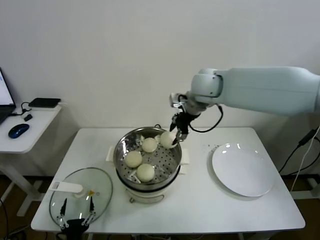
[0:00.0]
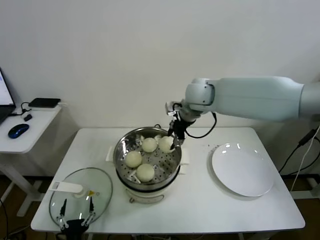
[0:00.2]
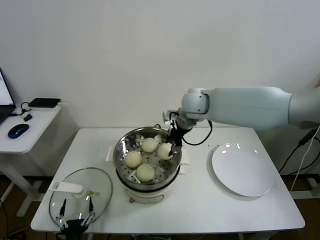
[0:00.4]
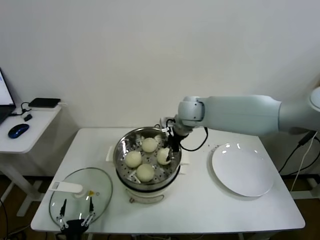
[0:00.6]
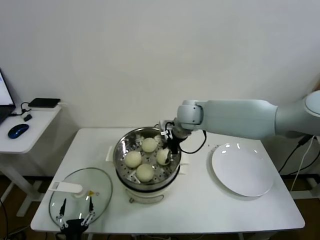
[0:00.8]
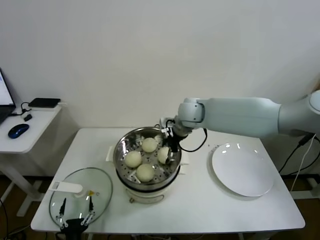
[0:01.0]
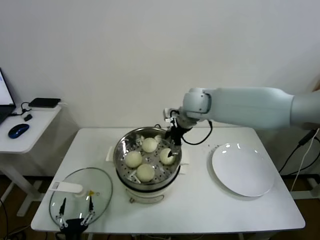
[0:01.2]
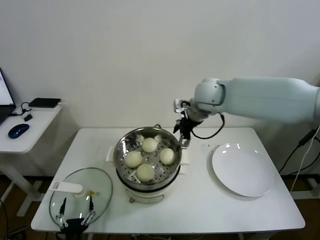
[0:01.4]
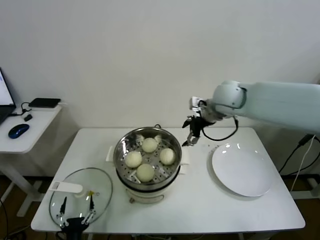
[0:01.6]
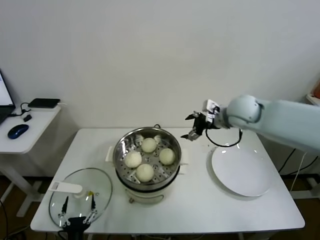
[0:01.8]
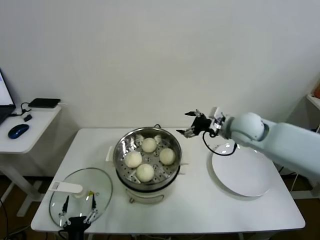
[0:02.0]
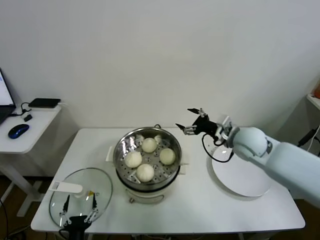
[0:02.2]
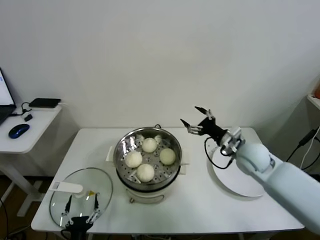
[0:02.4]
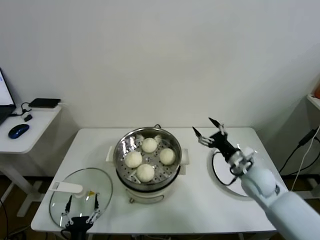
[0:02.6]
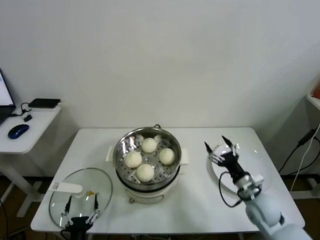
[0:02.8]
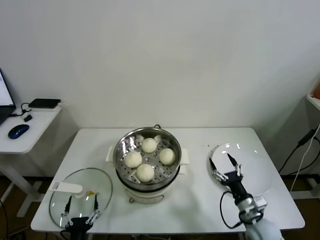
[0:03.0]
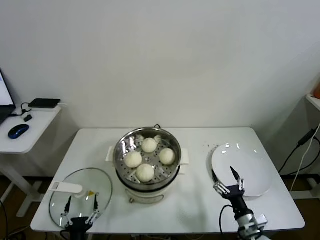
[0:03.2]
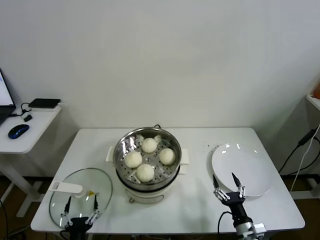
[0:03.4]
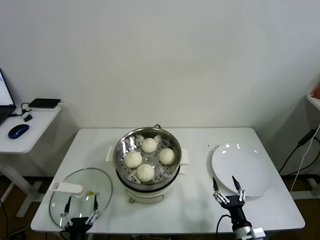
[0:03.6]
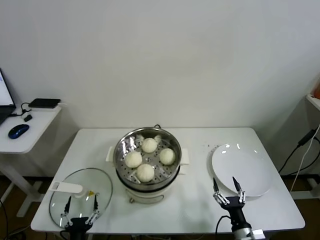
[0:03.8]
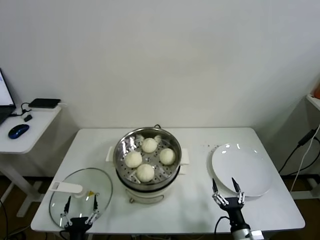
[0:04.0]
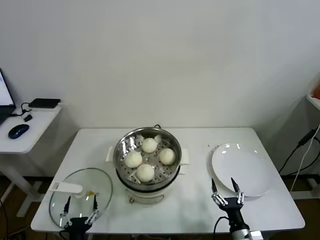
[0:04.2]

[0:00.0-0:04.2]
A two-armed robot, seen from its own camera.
Task of the whole recording: take steamed baozi put them in steamer.
0:00.0 to 0:01.4: The right gripper reaches approximately 10 cm downward, then returns, and opens up.
0:01.4 to 0:02.8: The right gripper heads downward, backward and to the right, covering some 40 cm.
0:02.8 to 0:04.2: The right gripper heads backward and downward, covering approximately 20 cm.

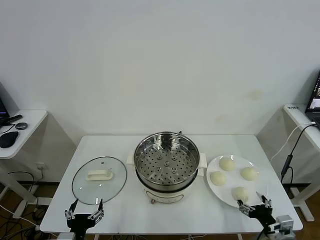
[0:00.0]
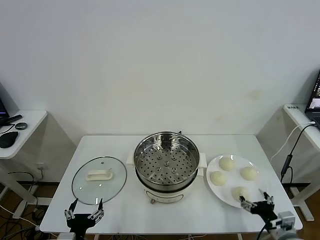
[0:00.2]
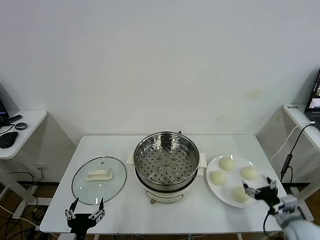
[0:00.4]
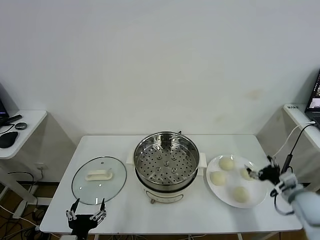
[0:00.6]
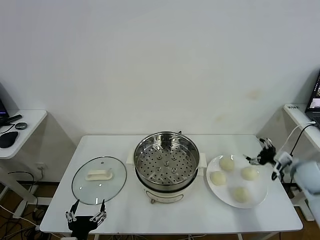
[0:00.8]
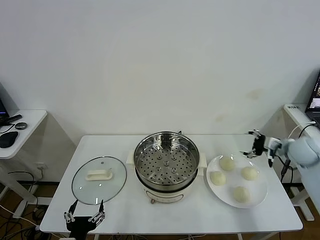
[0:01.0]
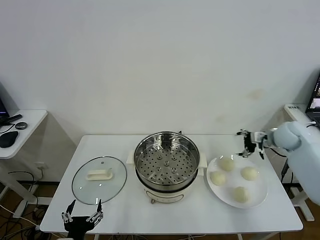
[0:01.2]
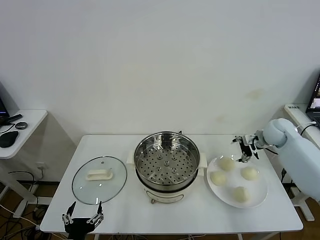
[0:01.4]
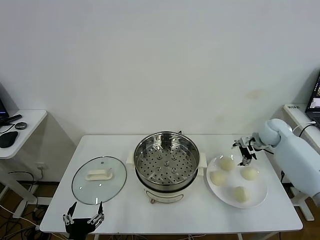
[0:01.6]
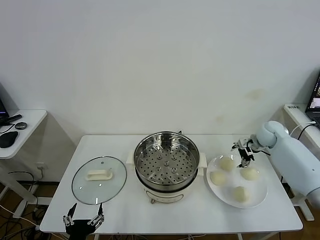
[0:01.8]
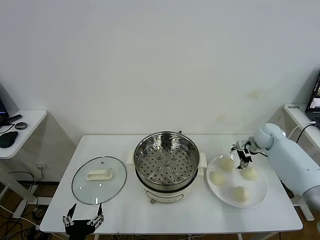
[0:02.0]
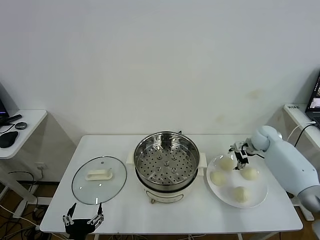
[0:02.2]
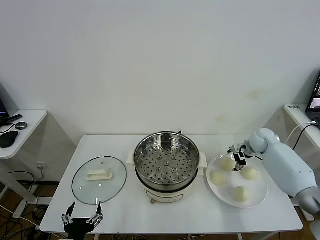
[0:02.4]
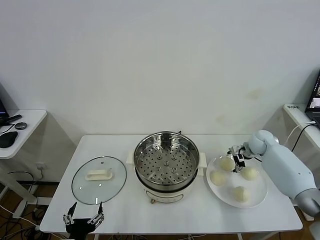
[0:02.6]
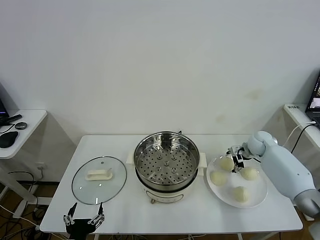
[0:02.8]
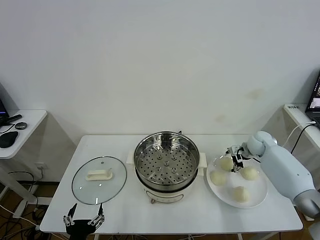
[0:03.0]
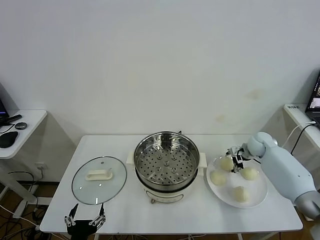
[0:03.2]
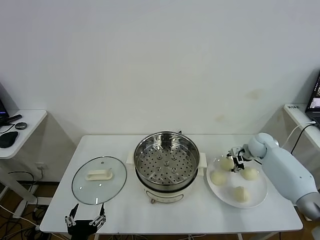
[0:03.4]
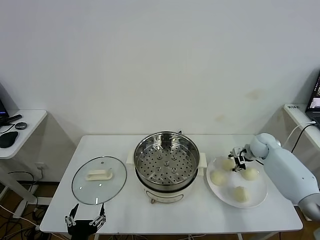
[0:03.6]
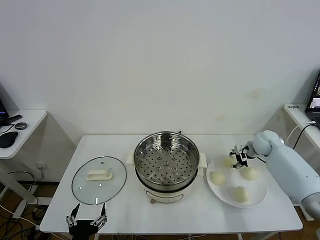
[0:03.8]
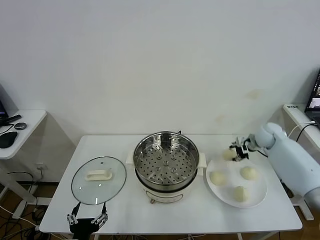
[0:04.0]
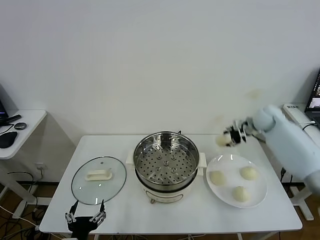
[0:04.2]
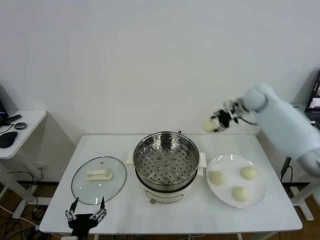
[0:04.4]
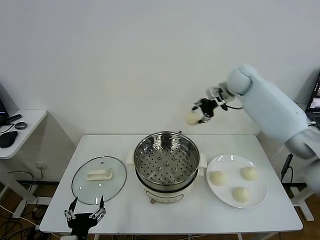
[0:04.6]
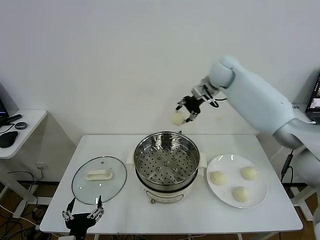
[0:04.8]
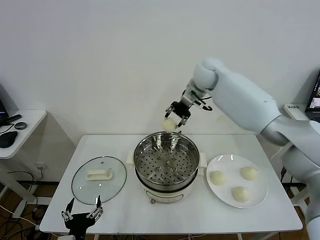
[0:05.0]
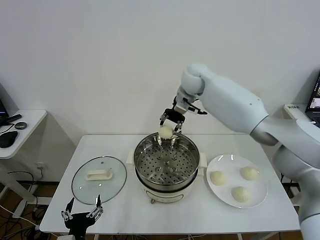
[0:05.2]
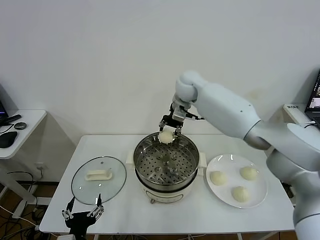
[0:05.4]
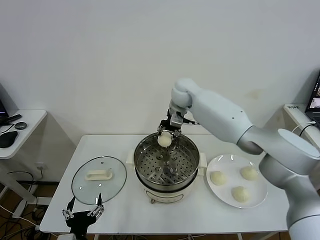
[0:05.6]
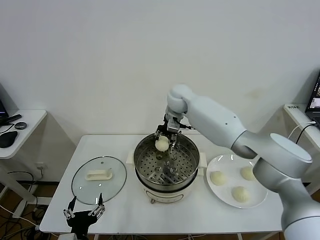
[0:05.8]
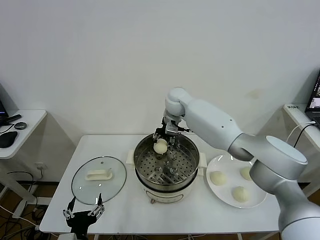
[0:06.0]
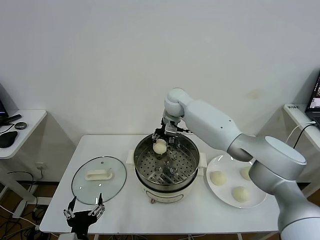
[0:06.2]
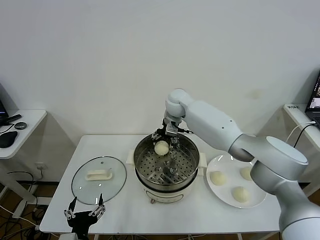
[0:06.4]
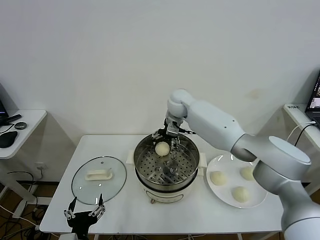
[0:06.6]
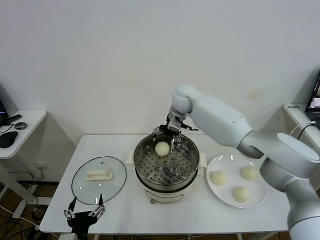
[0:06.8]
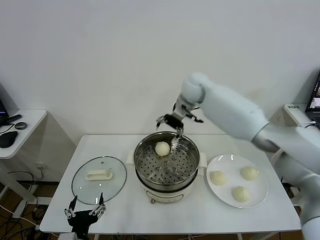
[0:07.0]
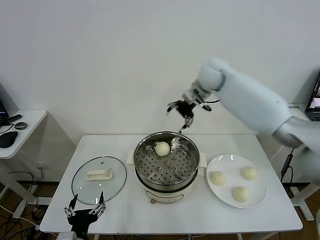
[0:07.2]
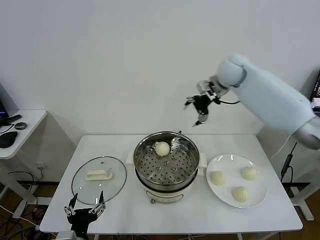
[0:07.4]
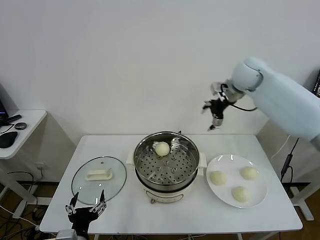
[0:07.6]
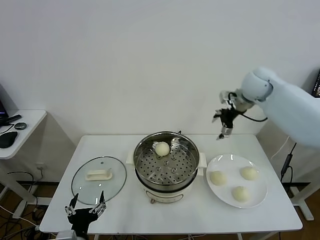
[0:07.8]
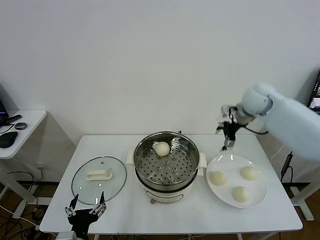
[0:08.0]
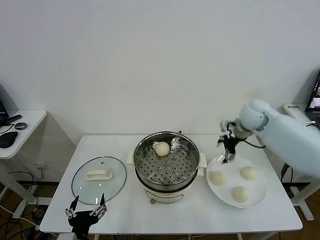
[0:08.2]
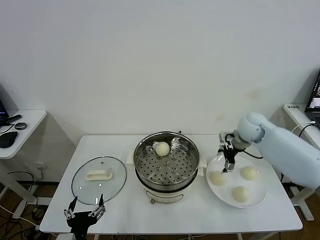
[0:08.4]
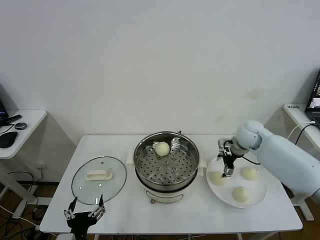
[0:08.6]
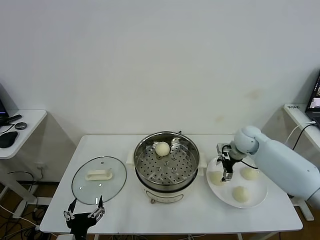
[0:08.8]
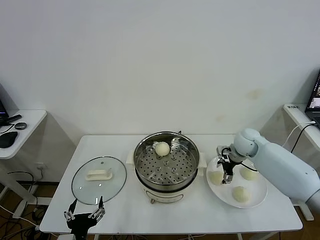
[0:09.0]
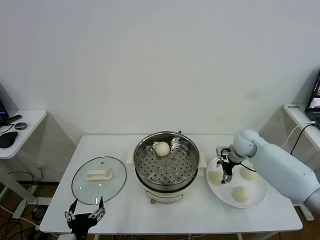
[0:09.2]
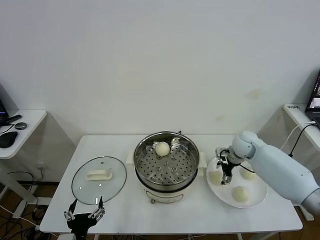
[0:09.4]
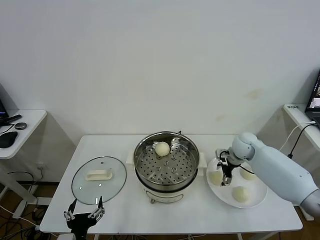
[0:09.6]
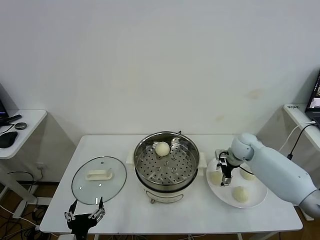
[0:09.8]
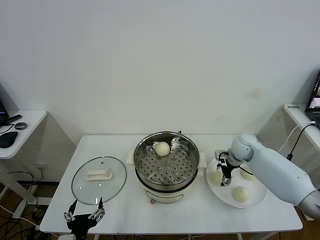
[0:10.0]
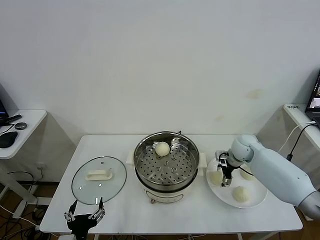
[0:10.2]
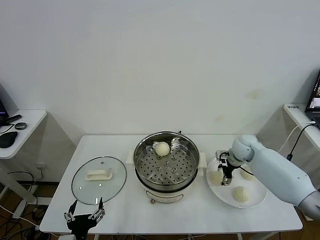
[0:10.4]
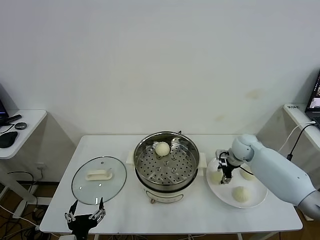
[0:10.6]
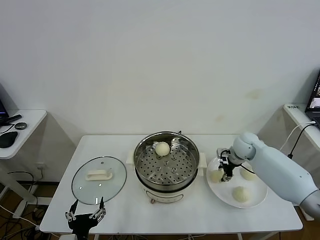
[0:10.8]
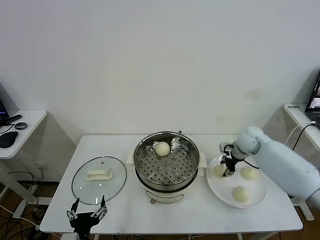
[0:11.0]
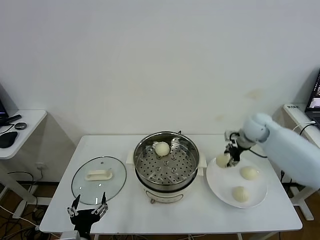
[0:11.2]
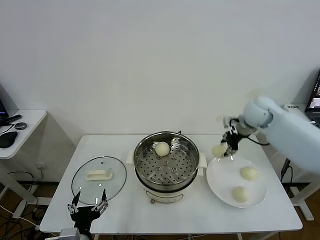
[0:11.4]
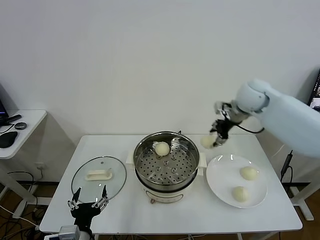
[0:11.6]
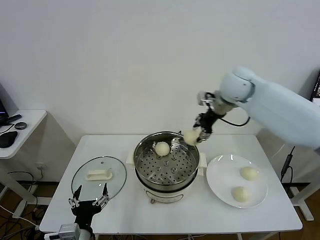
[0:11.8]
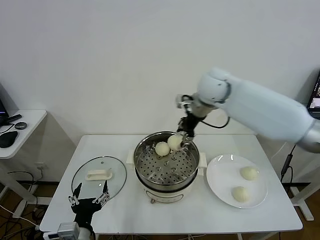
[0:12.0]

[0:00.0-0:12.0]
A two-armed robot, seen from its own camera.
Task of the whole recording: take steamed baozi put them in steamer.
Step, 0:00.0 to 0:03.4: Grasp the baozi in the plate with right gripper.
Step, 0:03.6 to 0:06.8: Place the baozi on the steamer with right gripper.
Step, 0:07.0 to 0:10.6: Grasp the baozi in the plate with right gripper.
0:01.6 to 0:03.0: The right gripper heads downward, covering roughly 5 cm.
0:03.0 to 0:04.4: The right gripper moves upward and to the left, approximately 25 cm, and closes up.
0:04.4 to 0:06.0: The right gripper is displaced to the left by about 25 cm.
0:06.0 to 0:07.6: The right gripper is displaced to the right and upward by some 25 cm, and opens up.
0:07.6 to 0:09.0: The right gripper goes some 20 cm downward.
0:09.0 to 0:10.4: The grippers move only a little.
0:10.4 to 0:12.0: The right gripper moves upward and to the left, about 30 cm.

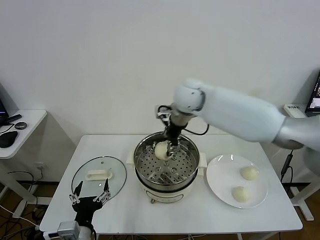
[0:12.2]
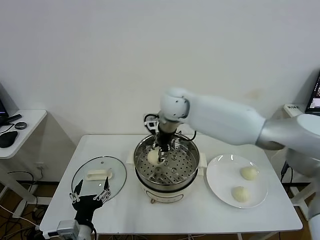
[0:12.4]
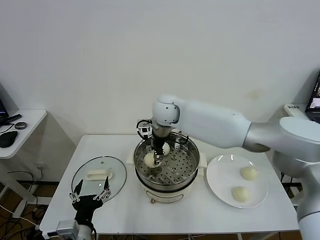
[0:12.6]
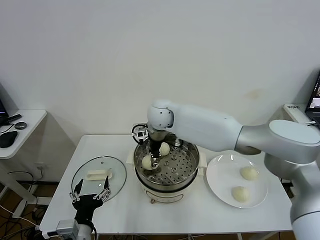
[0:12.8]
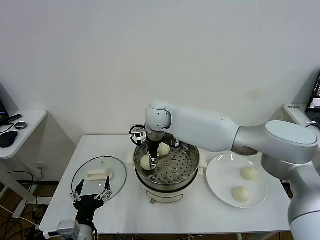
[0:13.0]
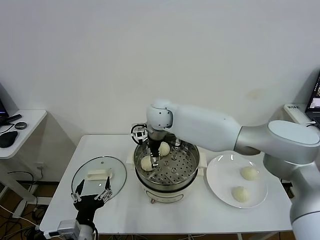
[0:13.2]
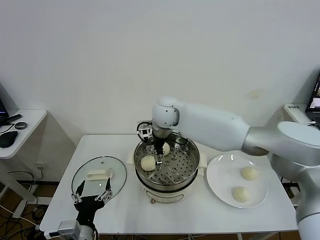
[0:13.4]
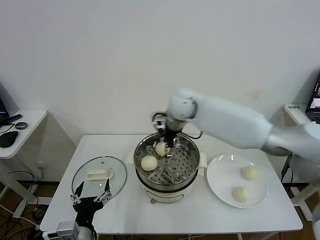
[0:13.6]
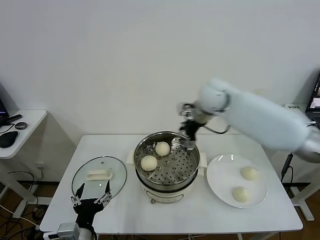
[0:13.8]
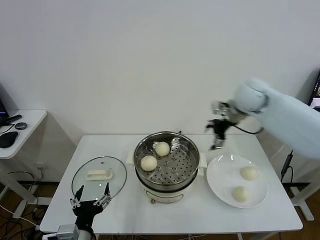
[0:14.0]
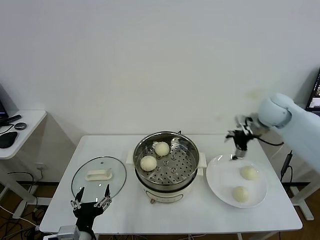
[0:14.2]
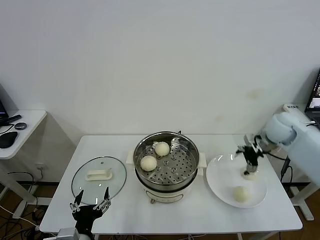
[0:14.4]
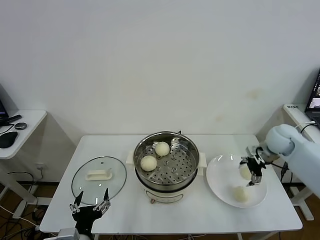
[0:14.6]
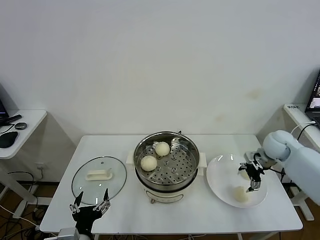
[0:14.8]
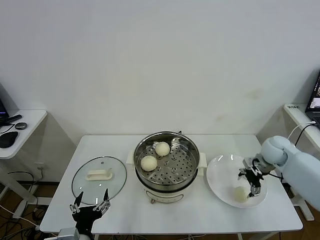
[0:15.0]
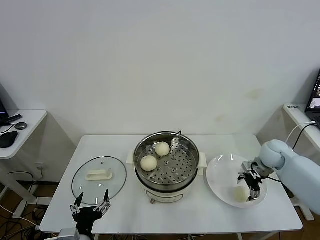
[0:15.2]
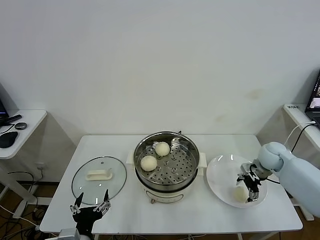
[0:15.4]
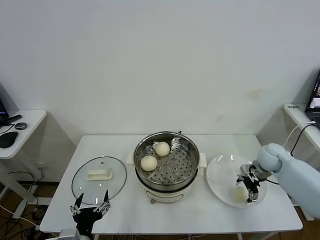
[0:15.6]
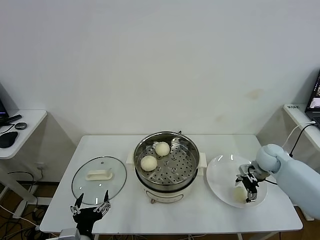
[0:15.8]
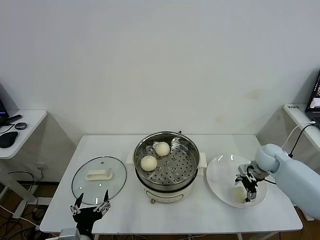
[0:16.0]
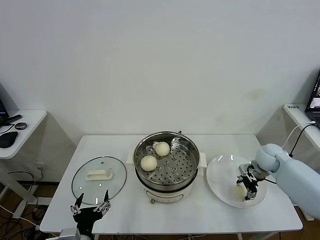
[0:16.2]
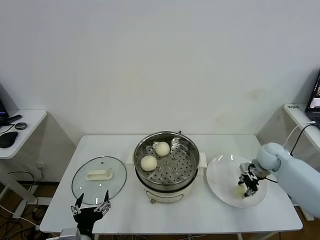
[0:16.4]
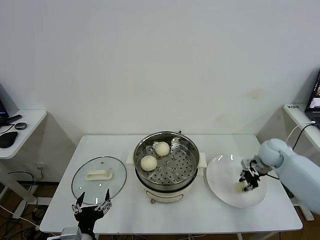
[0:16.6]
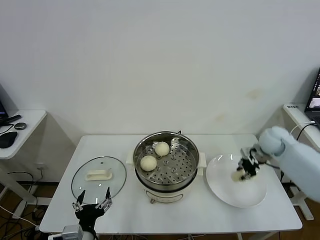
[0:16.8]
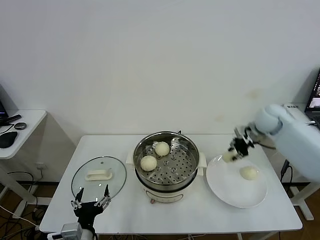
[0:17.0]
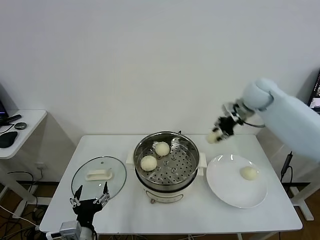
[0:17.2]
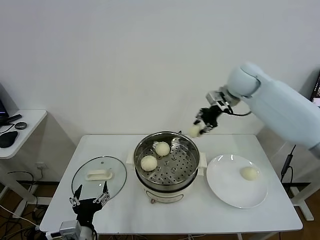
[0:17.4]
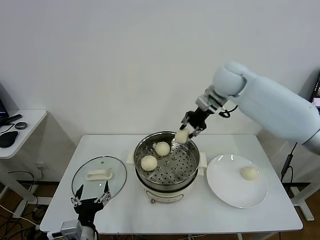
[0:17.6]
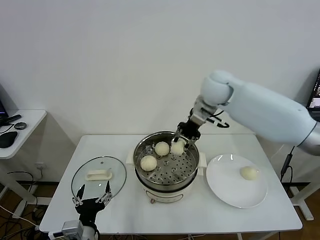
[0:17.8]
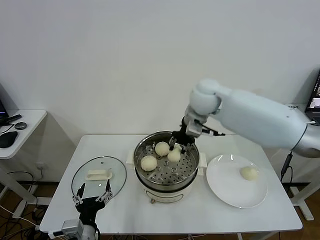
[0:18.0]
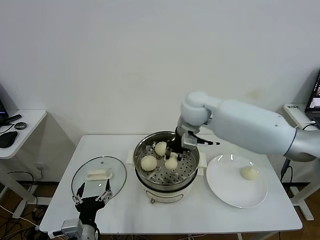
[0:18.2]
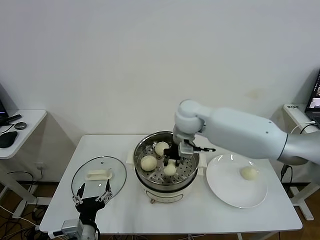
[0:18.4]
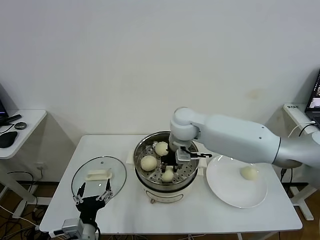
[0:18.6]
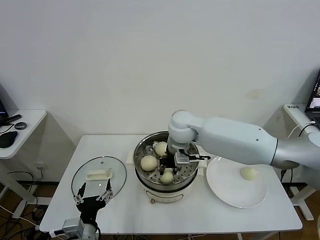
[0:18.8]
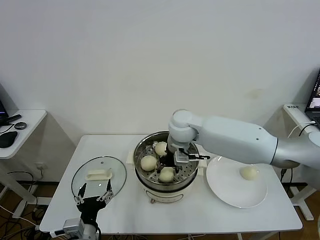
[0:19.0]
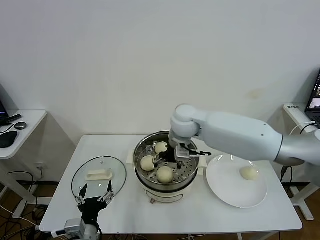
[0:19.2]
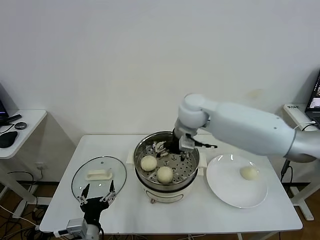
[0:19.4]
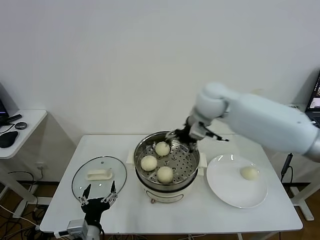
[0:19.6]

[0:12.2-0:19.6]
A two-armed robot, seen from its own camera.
Task of the whole recording: take steamed baozi put them in steamer.
Step, 0:13.6 to 0:16.4: Grasp the baozi in the plate with right gripper.
Step, 0:16.6 to 0:19.2: Place the baozi on the steamer with right gripper.
0:12.2 to 0:13.6: The right gripper moves roughly 10 cm to the left and comes back, and opens its fingers.
0:13.6 to 0:15.2: The right gripper is displaced to the right and downward by roughly 35 cm.
0:15.2 to 0:16.6: The right gripper closes its fingers.
0:16.6 to 0:18.2: The right gripper heads to the left and upward, covering approximately 35 cm.
0:18.2 to 0:19.6: The right gripper goes some 5 cm to the right, and opens.
